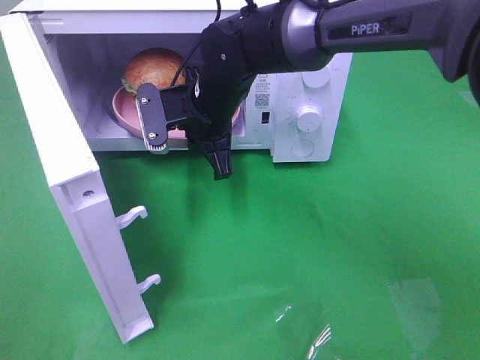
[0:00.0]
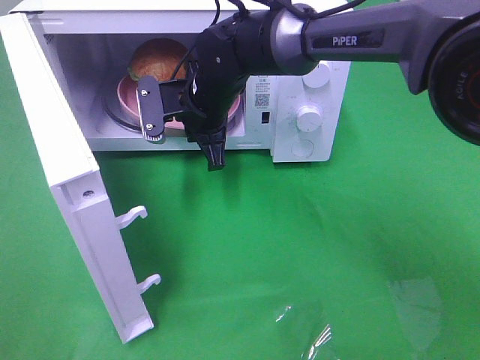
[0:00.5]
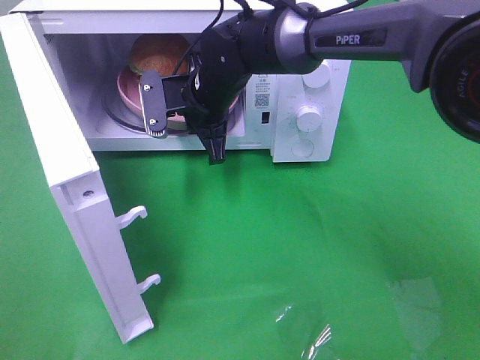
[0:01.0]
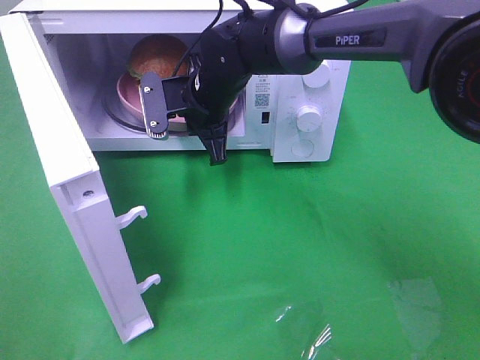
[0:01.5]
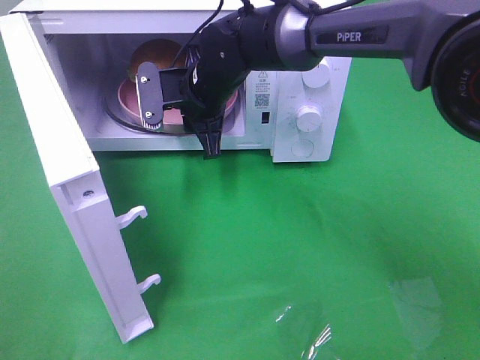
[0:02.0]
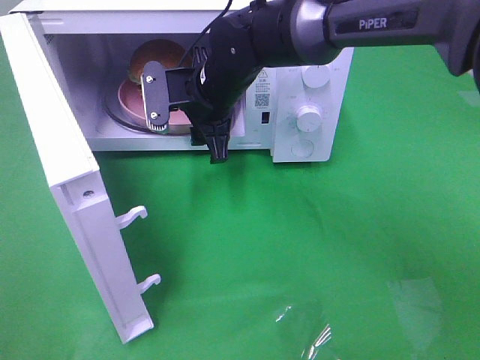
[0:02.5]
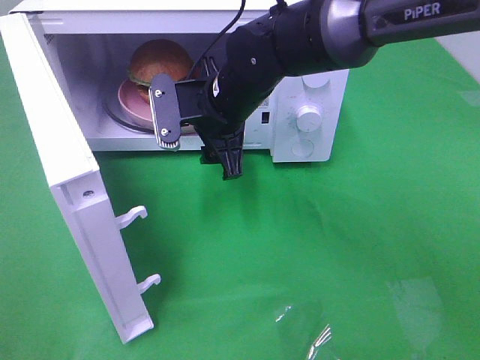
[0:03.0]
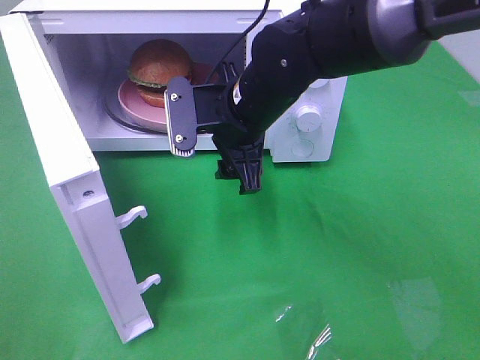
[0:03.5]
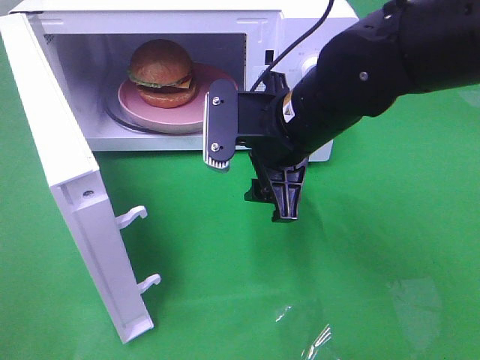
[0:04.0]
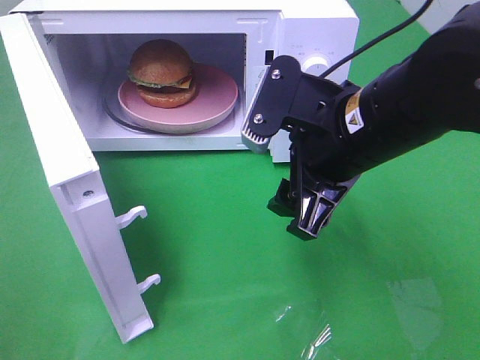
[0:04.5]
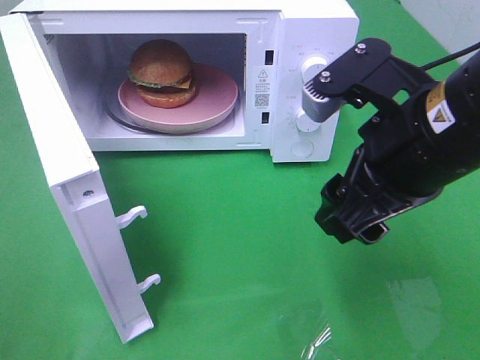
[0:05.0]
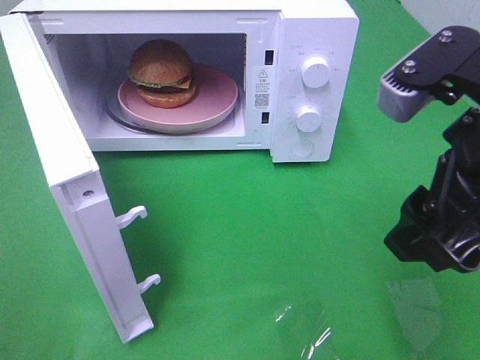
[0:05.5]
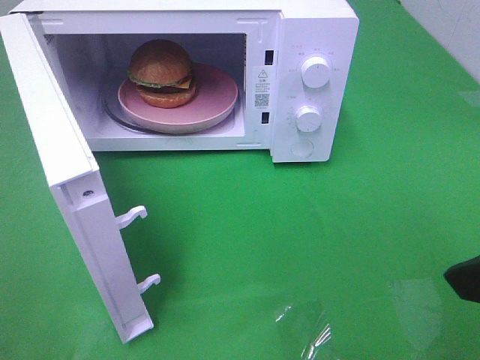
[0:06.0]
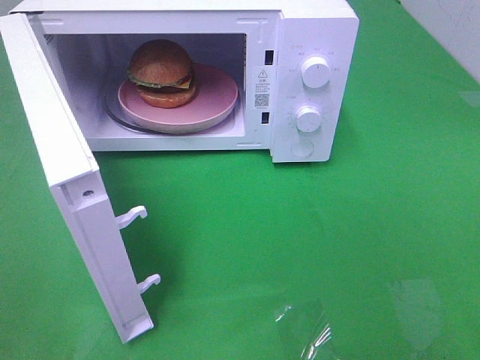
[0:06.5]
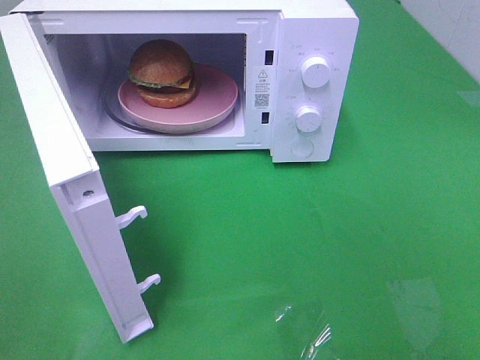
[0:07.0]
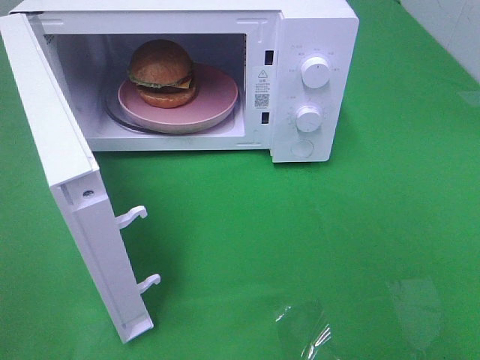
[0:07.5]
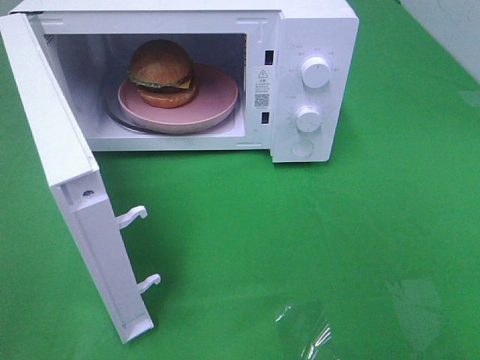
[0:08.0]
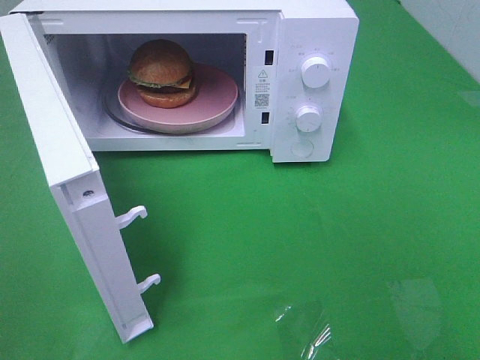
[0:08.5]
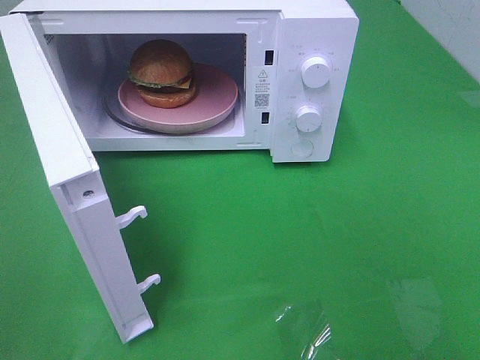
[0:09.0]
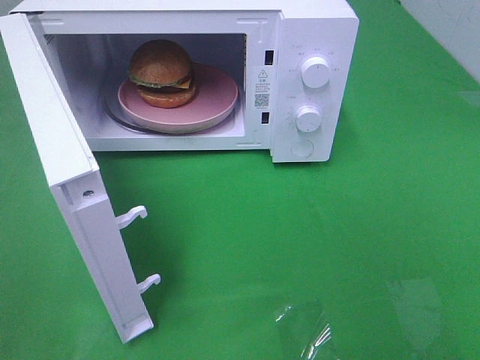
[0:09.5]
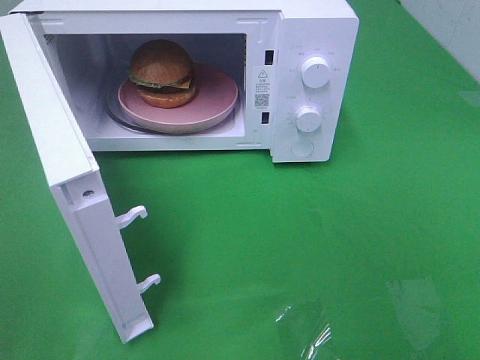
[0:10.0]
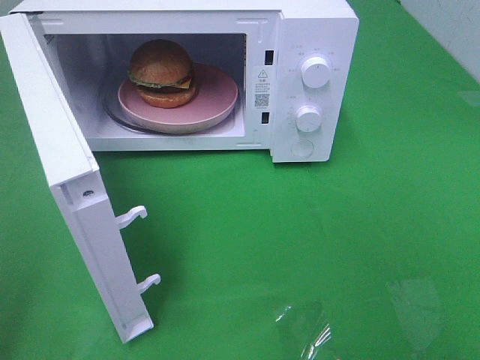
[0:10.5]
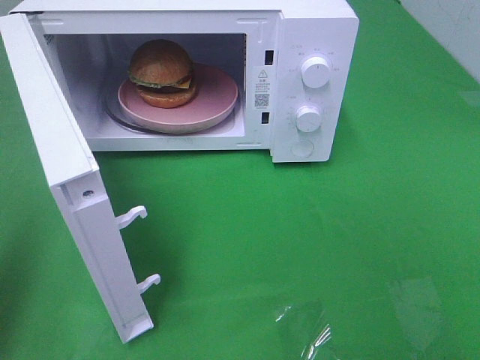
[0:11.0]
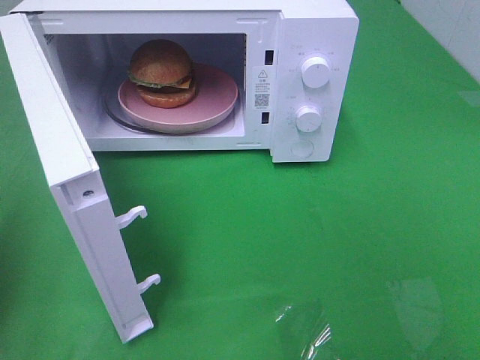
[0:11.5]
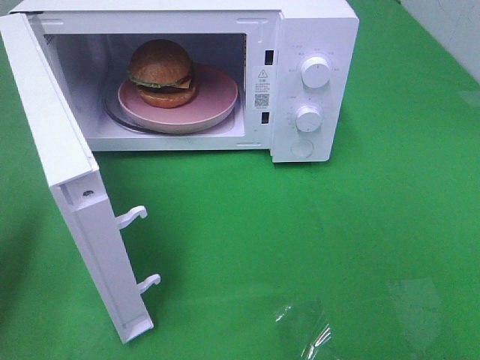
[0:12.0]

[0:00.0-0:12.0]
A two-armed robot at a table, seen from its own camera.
Task of the whole recording: Heat the burger.
Step, 0.0 to 2.0 s: Right hand: place the plate in the microwave.
0.0 to 2.0 s: The right gripper opens its fingers.
2.0 to 4.0 s: The right gripper moves backward and to the right, approximately 15 cm, and opens.
4.0 to 6.0 s: The right gripper is displaced backward, to the right and upward by roughly 25 cm.
6.0 to 8.0 s: The right gripper is displaced backward and to the right by some 15 cm.
8.0 to 10.0 s: Both grippers stay put.
10.0 to 12.0 s: The left gripper travels forward and downward by about 20 cm, and closes its fingers.

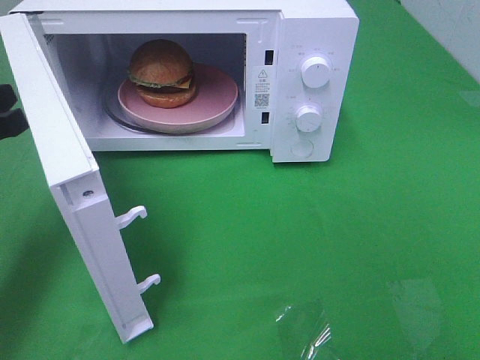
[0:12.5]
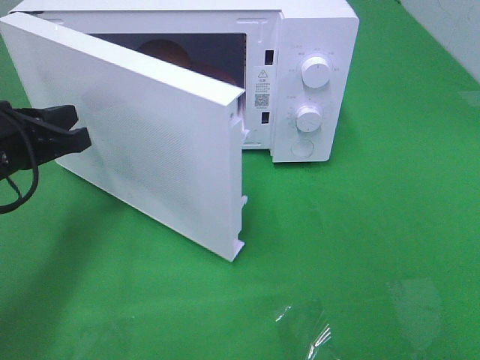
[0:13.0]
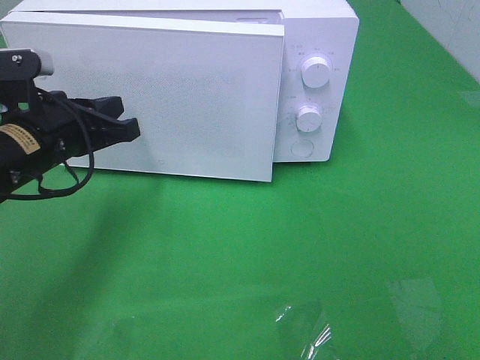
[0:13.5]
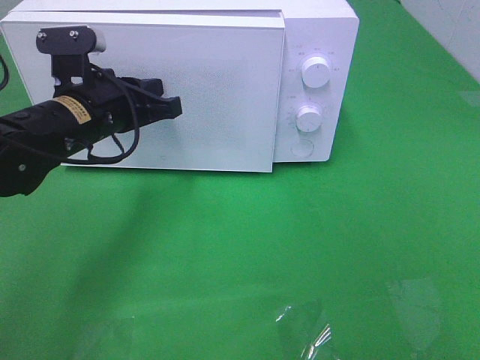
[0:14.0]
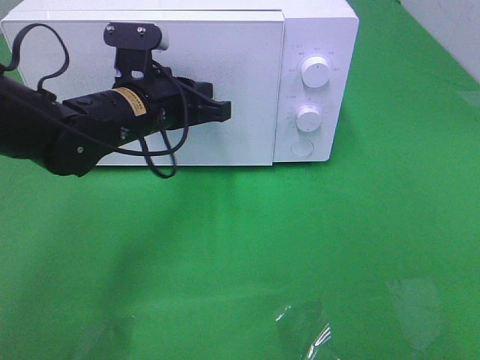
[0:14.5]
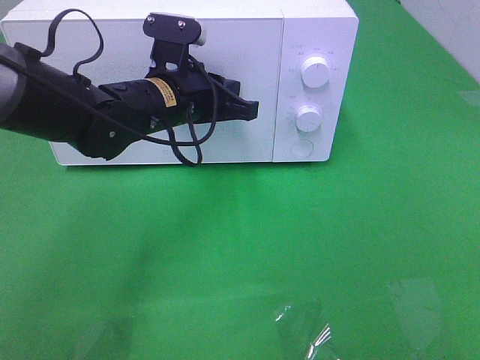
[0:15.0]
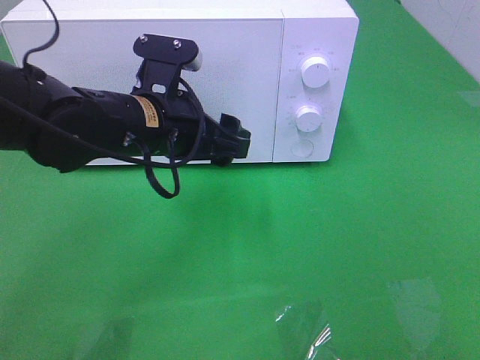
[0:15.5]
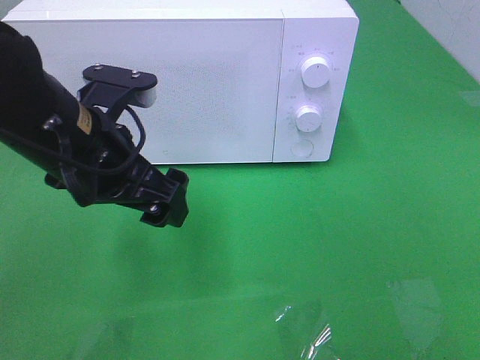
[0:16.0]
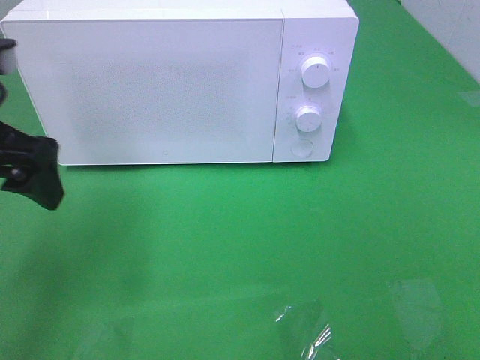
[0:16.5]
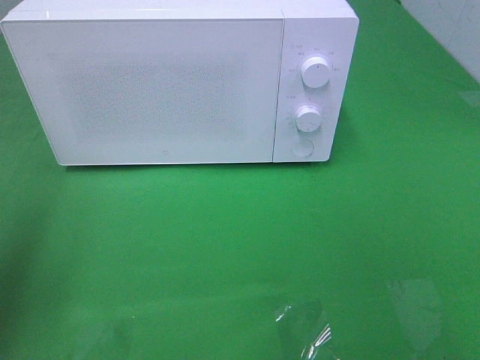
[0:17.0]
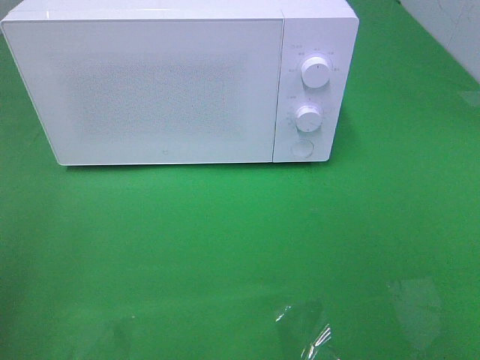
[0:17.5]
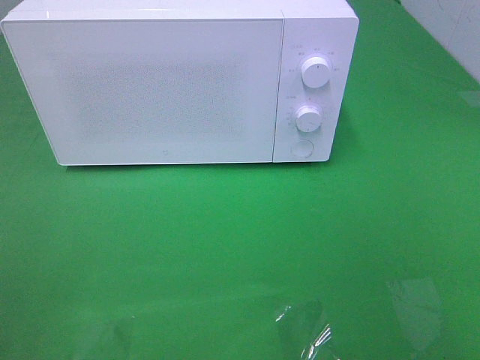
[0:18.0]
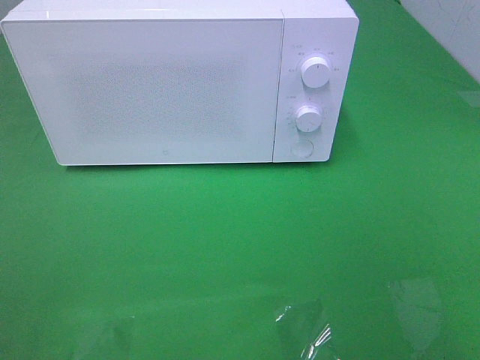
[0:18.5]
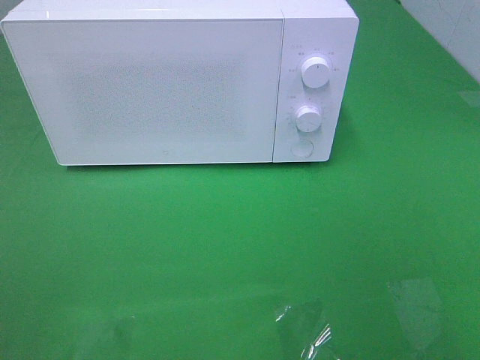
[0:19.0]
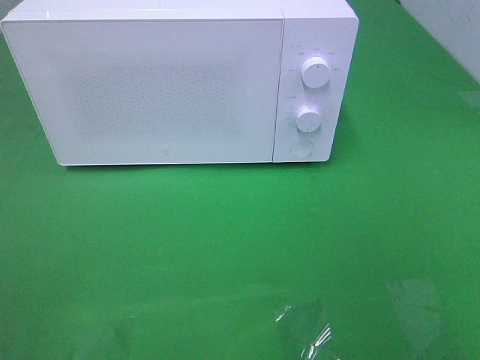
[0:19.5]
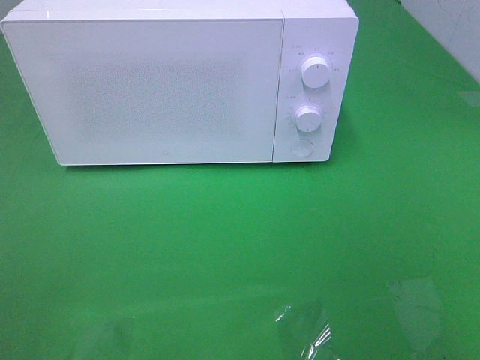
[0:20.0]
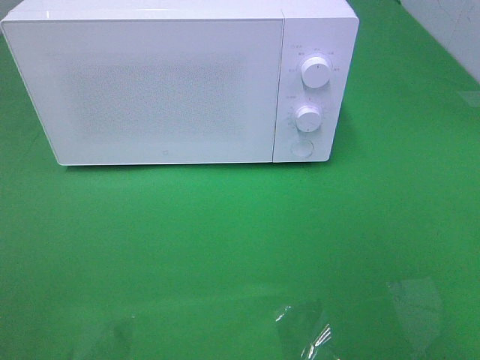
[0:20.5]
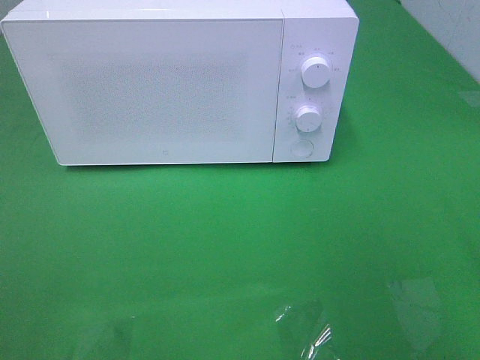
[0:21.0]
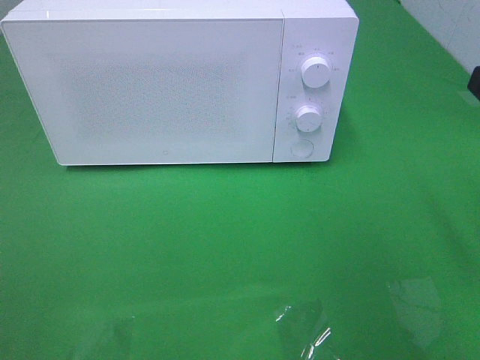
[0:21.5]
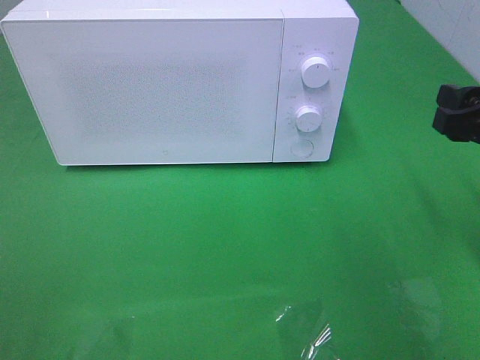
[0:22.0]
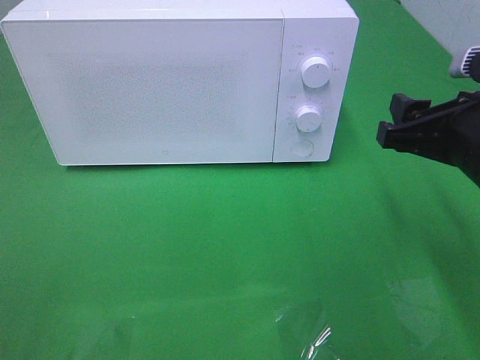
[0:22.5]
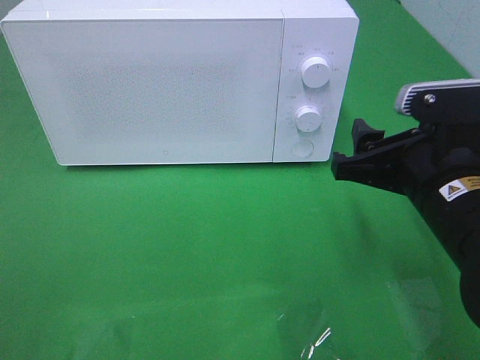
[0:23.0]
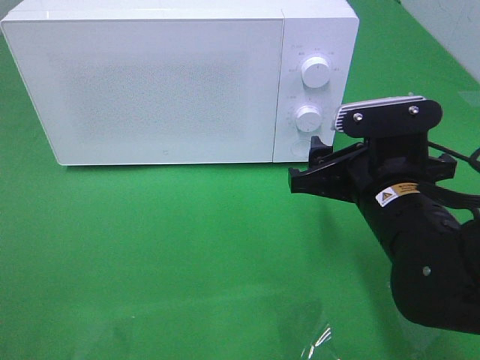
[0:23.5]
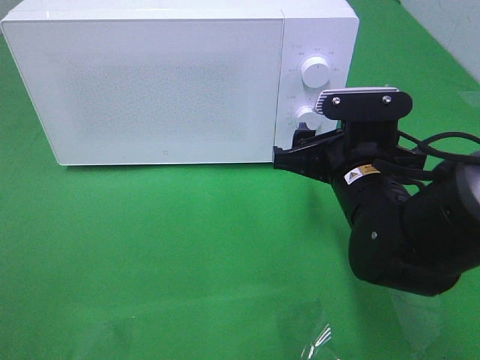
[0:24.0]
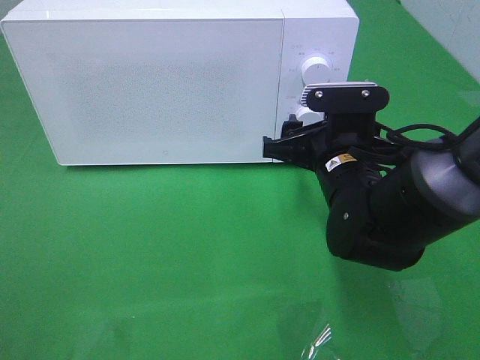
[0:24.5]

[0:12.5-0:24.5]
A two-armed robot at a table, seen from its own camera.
Task of the whole recording: Heat the burger.
Step, 12.5 to 15.5 s: Left hand: close the microwave door.
12.5 to 14.5 s: The left gripper goes some 20 cm to the right and forward.
14.5 to 16.5 s: The left gripper is displaced to the left, backward and upward by roughly 20 cm, and opens its fingers.
16.5 to 18.5 s: The left gripper is displaced backward by approximately 25 cm.
20.5 to 22.5 s: The right gripper moves forward, downward and to the left, approximately 20 cm.
22.5 to 24.5 s: The right gripper shifts some 15 cm to the left, downward and forward.

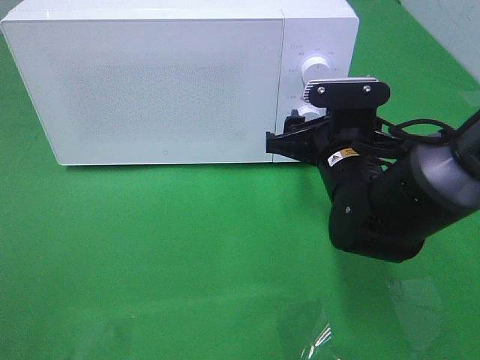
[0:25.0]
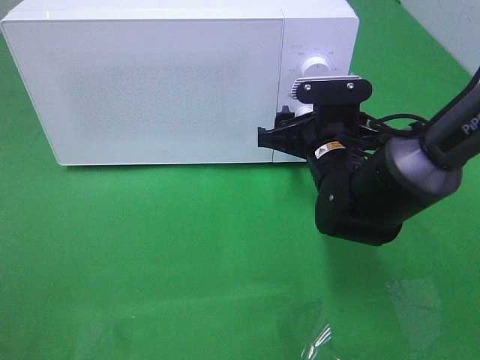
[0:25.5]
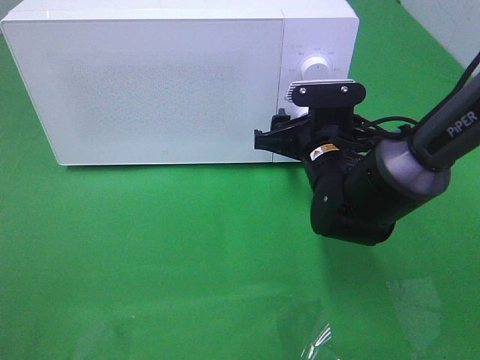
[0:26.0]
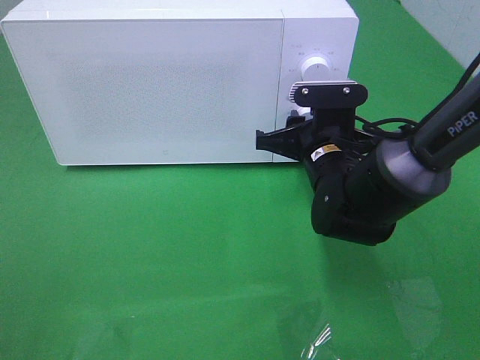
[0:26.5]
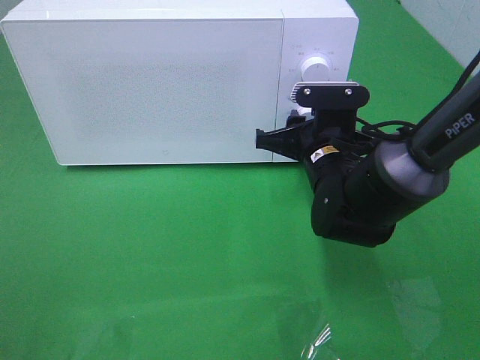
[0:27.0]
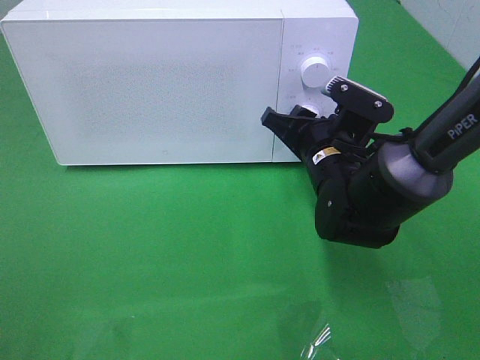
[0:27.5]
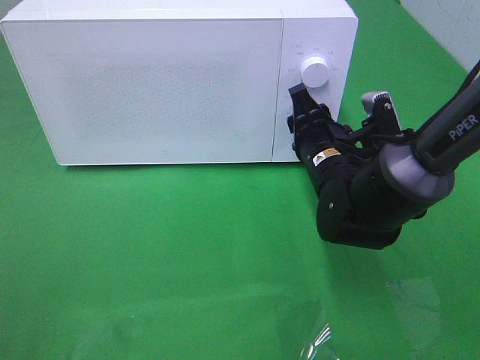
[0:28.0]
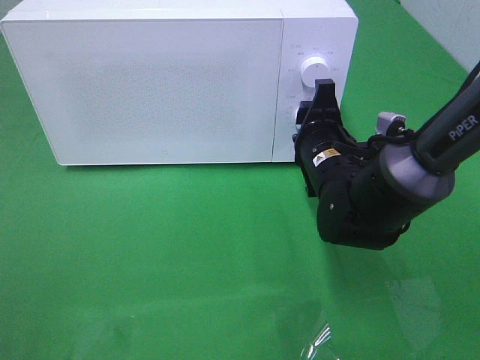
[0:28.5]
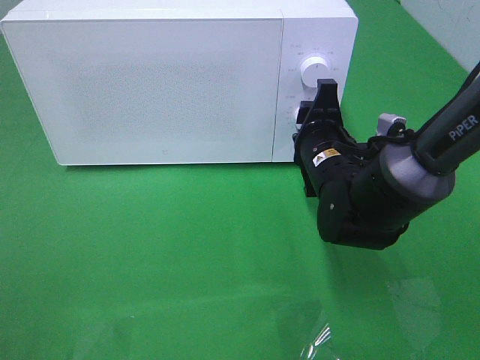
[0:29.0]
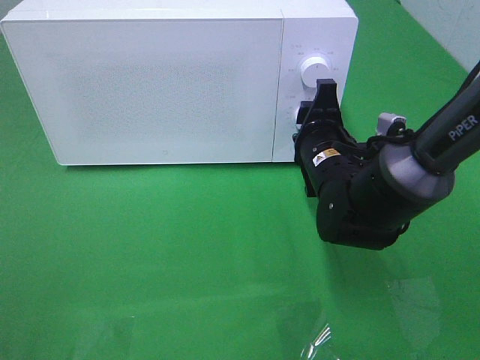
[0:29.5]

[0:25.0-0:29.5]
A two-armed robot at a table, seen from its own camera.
Task of the whole recording: Heat the burger.
25.0 to 27.0 s: The grippers stay close to where they were, moving slightly.
